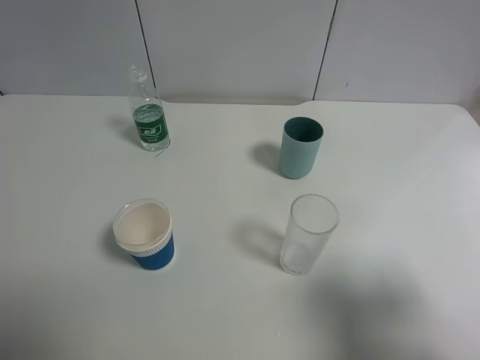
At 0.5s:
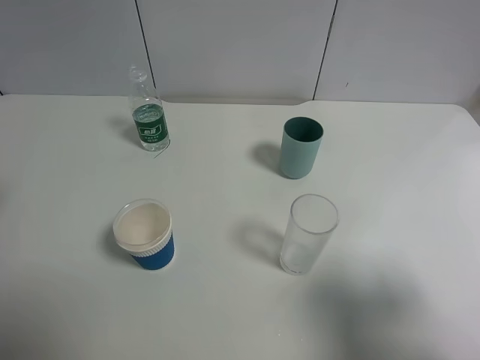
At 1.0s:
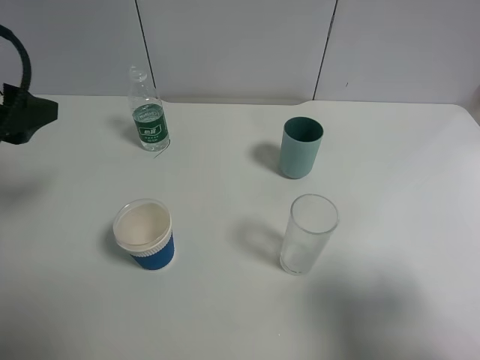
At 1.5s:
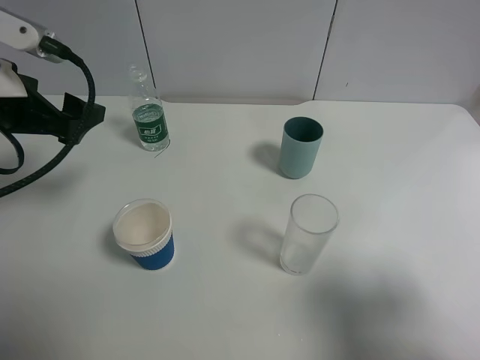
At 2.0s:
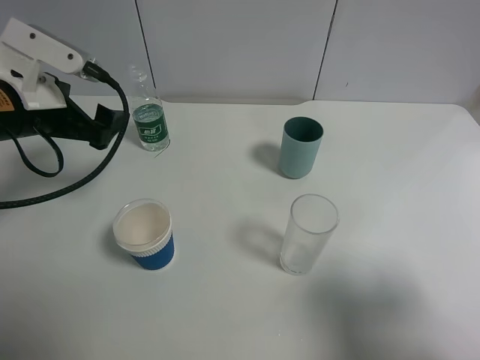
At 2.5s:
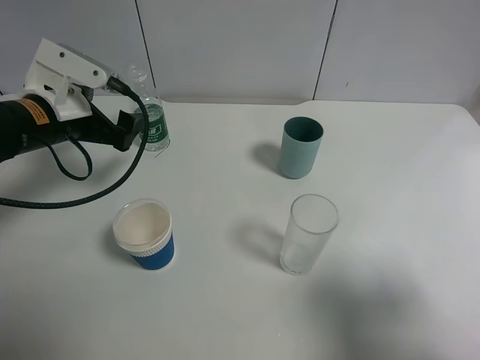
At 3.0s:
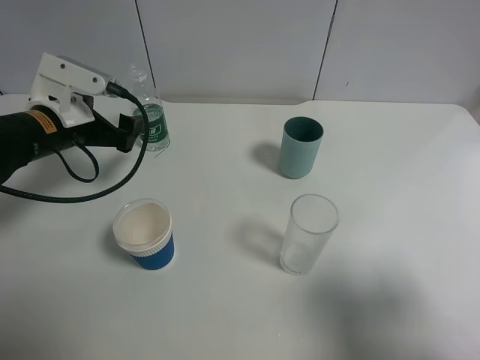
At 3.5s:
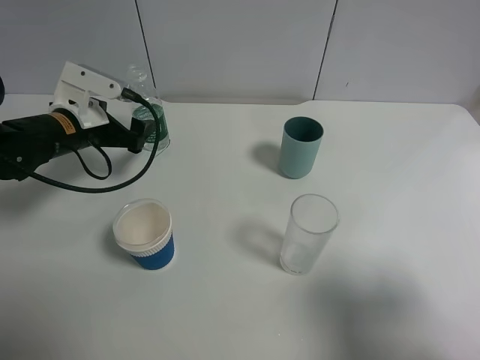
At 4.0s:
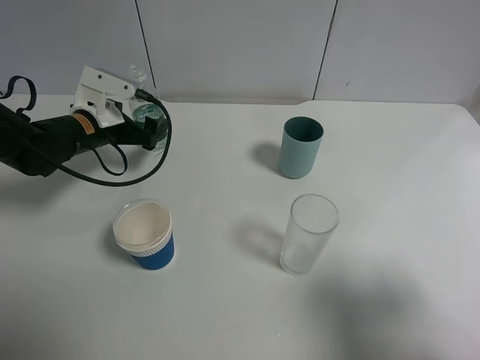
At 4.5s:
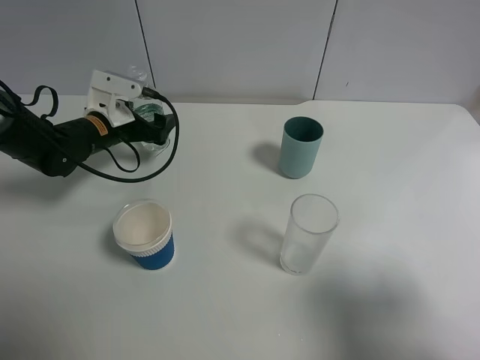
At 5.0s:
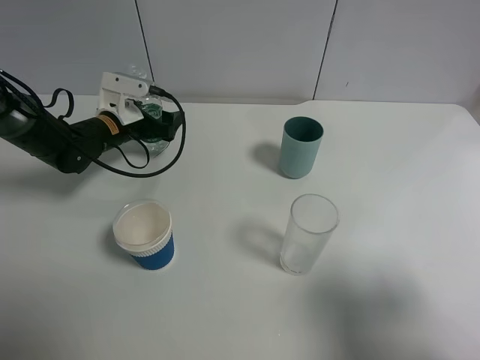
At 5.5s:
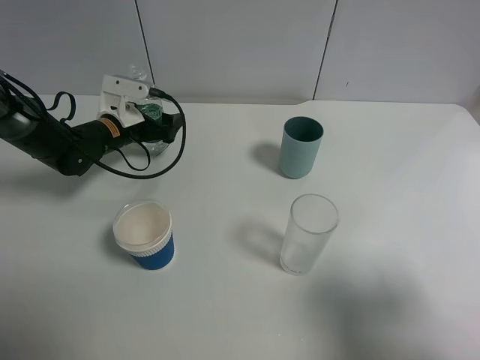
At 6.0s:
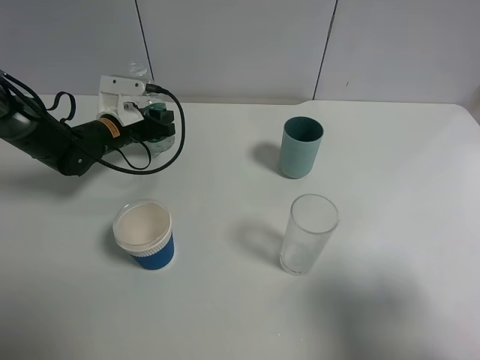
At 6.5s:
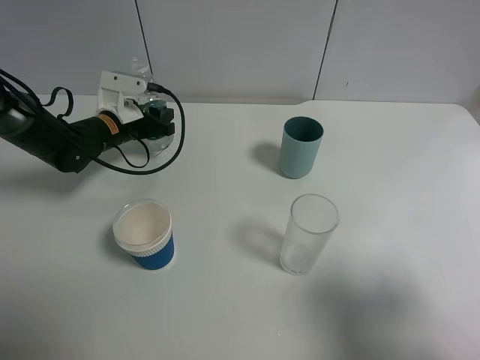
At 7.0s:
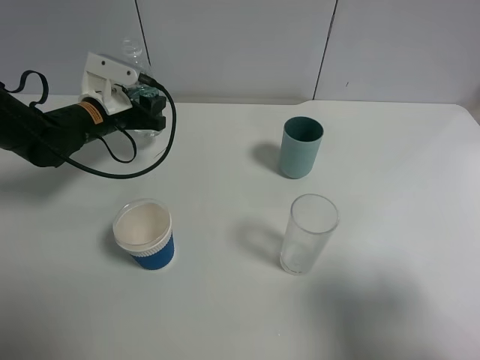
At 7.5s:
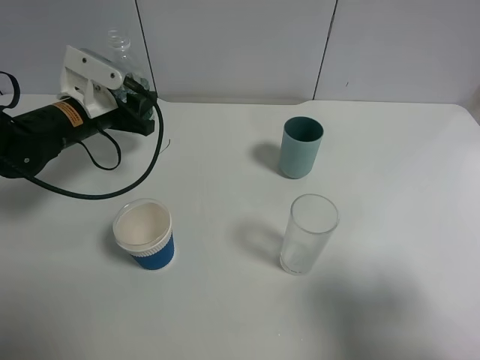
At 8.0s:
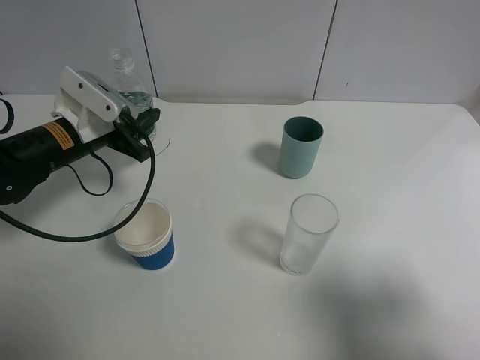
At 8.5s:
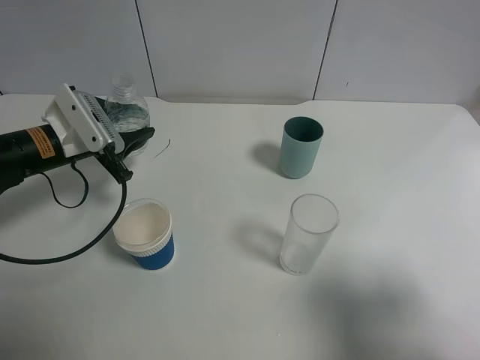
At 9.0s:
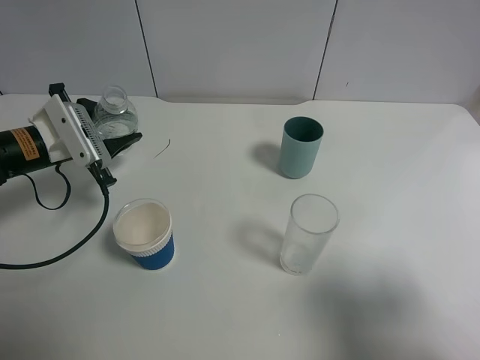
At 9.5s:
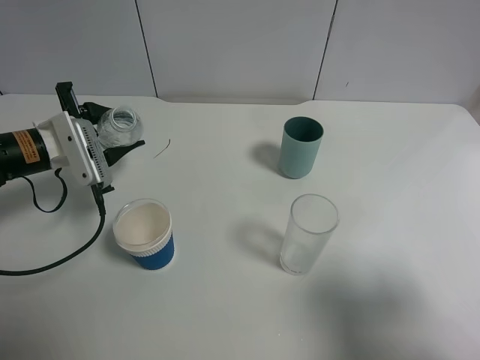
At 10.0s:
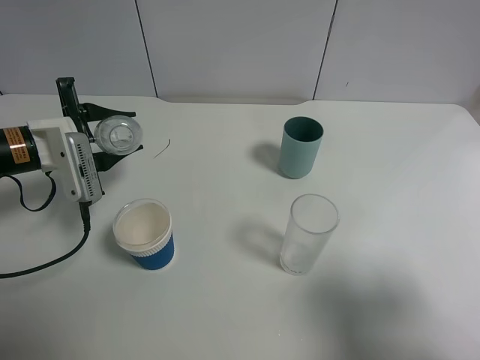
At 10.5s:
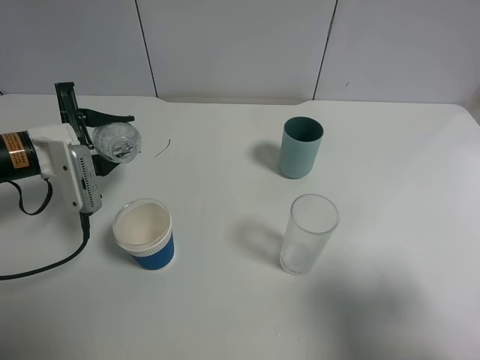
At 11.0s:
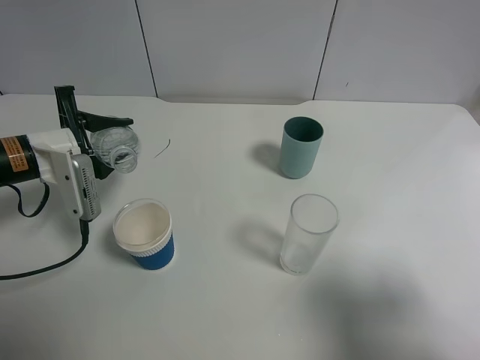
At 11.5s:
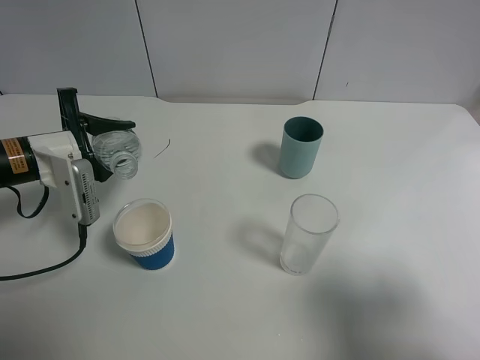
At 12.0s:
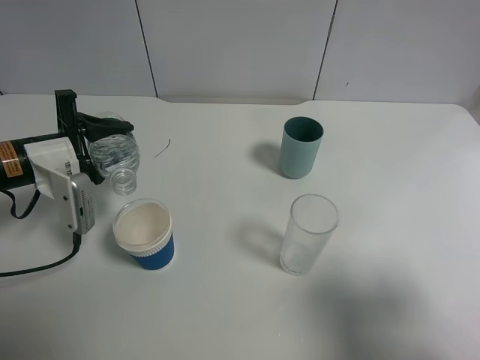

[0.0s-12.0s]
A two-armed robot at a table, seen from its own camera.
Task of the whole recording: use a gripper to hold the bottle of the drink and pour it into a random cup.
Step, 0.0s to 5.5s: Grasp the mineral water bottle with the left gripper.
0.0s to 2.0s: The left gripper is displaced forward, downward and to the right by roughly 20 cm.
2.0s to 4.0s: The left gripper goes approximately 15 cm downward and forward.
4.0s to 6.0s: The left gripper shifts by about 5 cm, and closes its fingers.
6.0s to 8.0s: The left gripper moves backward and upward, some 10 cm.

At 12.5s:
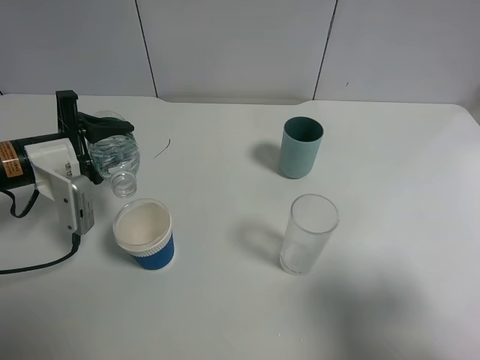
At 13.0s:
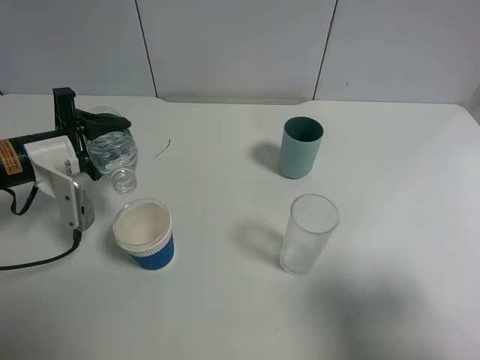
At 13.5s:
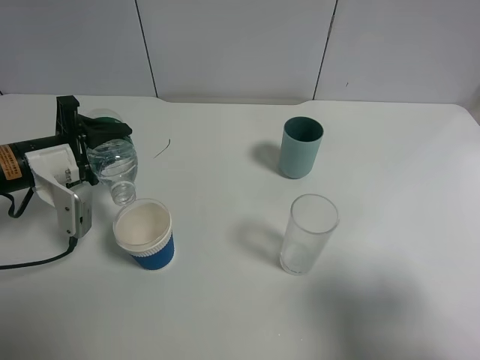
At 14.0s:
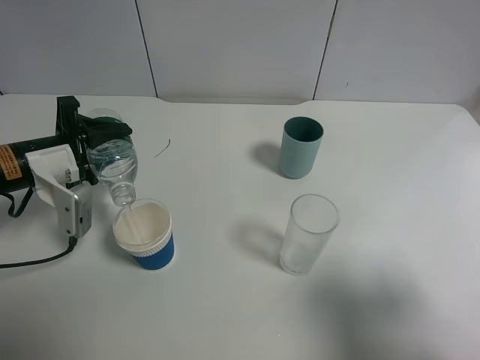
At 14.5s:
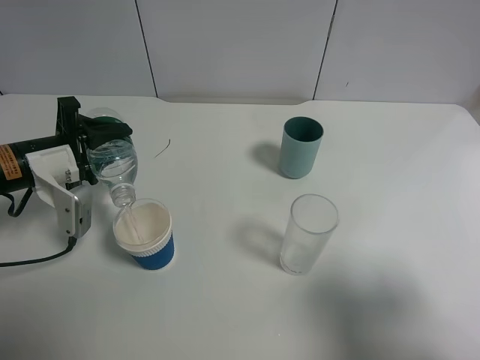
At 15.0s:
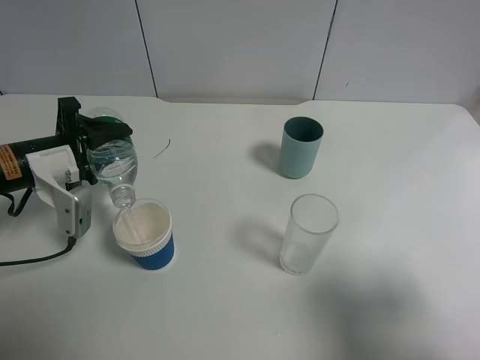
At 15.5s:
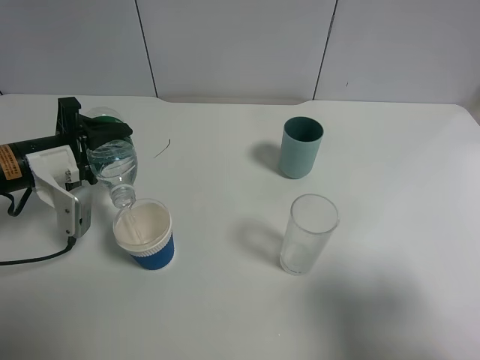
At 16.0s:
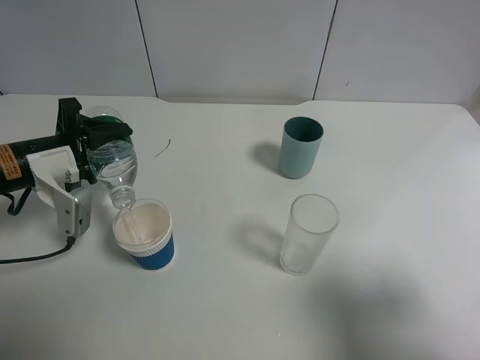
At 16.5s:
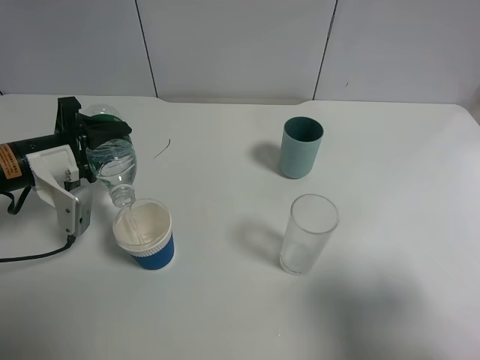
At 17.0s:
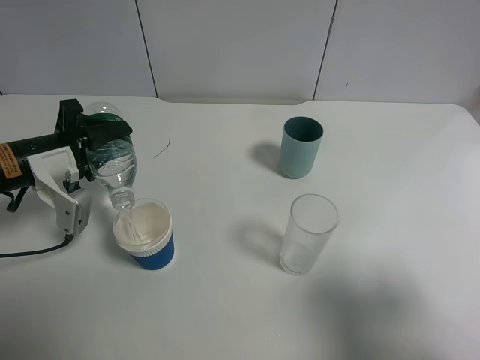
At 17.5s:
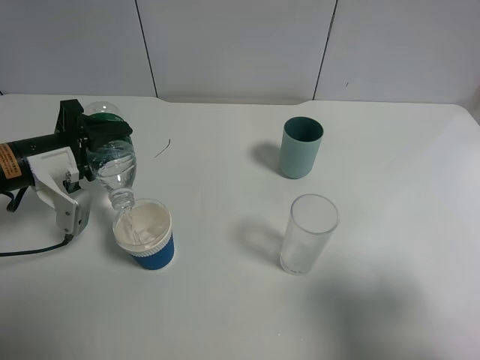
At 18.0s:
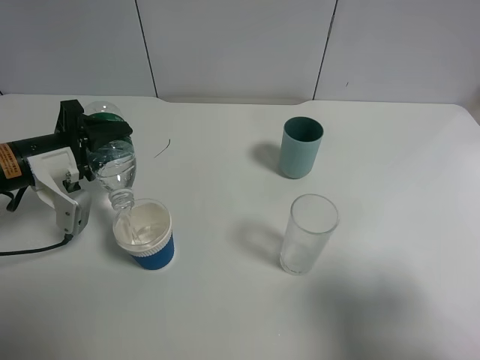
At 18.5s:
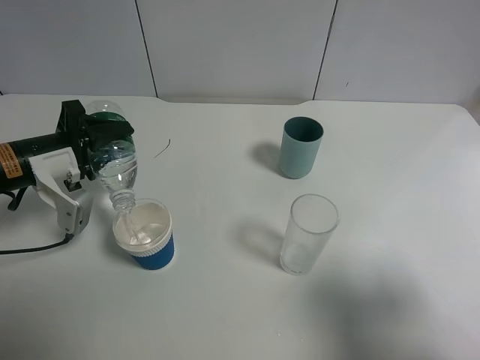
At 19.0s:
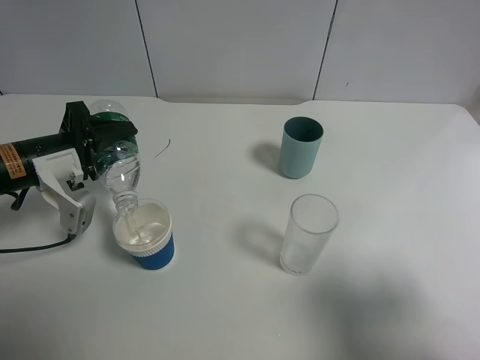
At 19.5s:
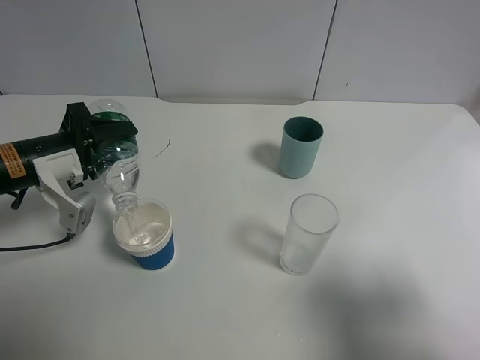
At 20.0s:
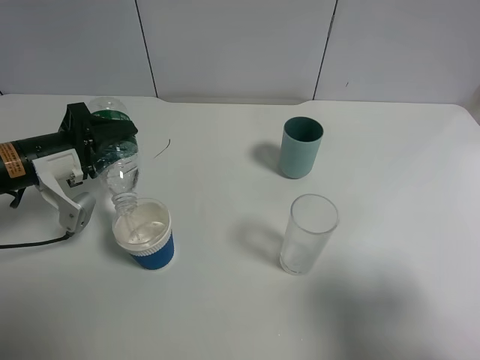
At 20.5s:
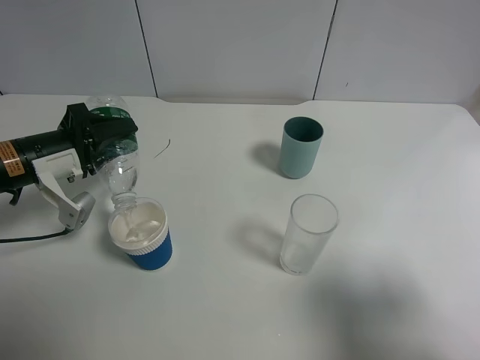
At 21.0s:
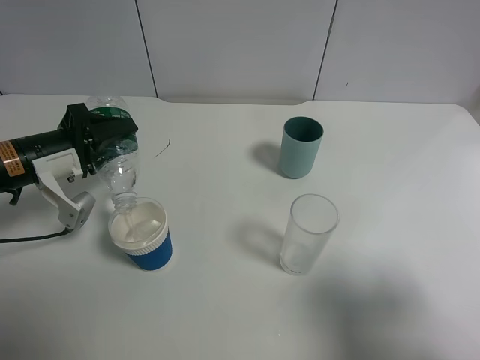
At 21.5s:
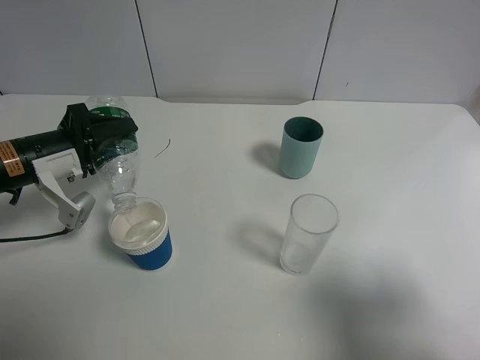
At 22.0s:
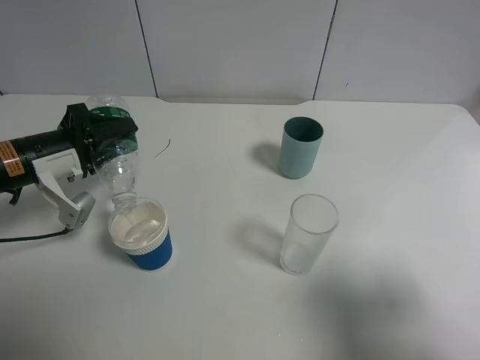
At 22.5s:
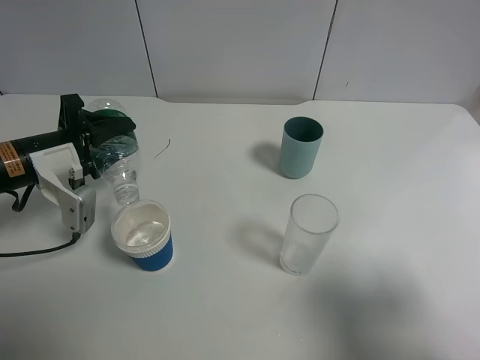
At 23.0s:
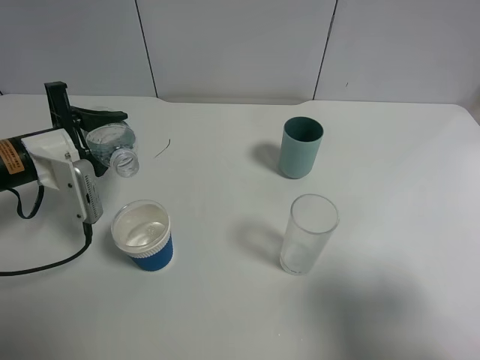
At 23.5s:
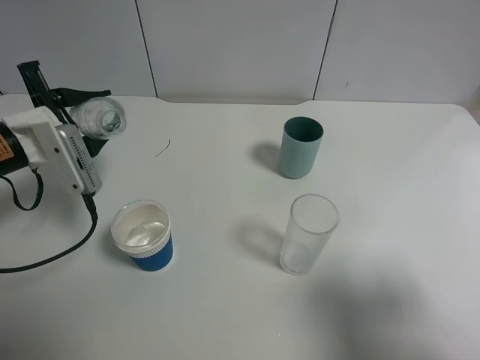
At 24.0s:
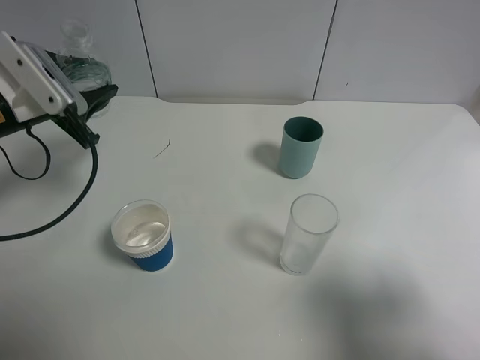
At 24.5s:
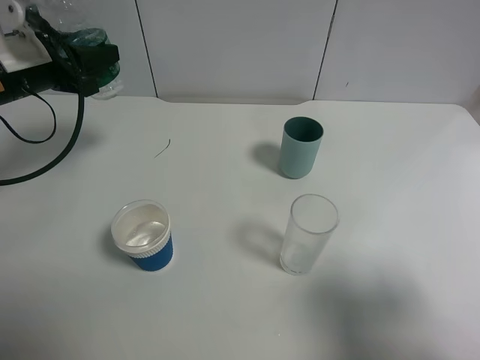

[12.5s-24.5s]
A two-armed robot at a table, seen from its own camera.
Task of the whole recording: use a gripper to hold the bottle of the drink and pour it into a random cup.
Step, 12.5s to 22.5s: Pour the mineral water into the paper cup with the left gripper.
12.5s to 14.5s: The grippers move only a little.
14.5s to 16.5s: Both grippers stay put.
16.5s to 22.5s: There are only small adjustments of the grippers.
22.5s to 24.5s: The left gripper goes approximately 10 cm upward and forward.

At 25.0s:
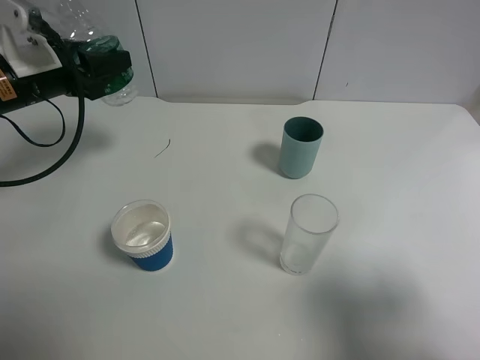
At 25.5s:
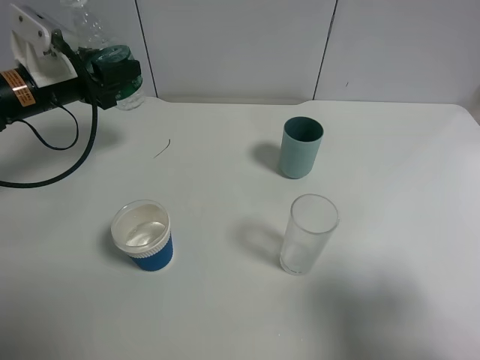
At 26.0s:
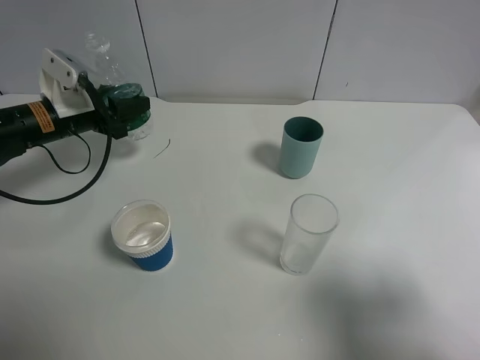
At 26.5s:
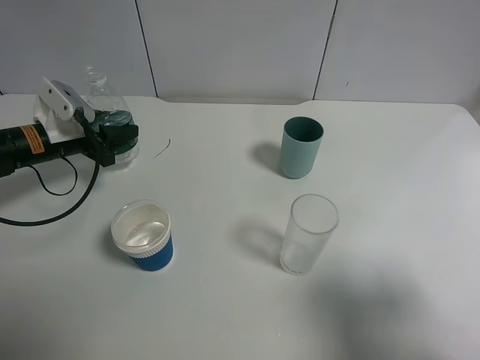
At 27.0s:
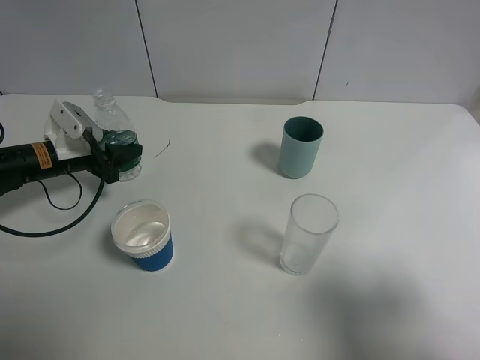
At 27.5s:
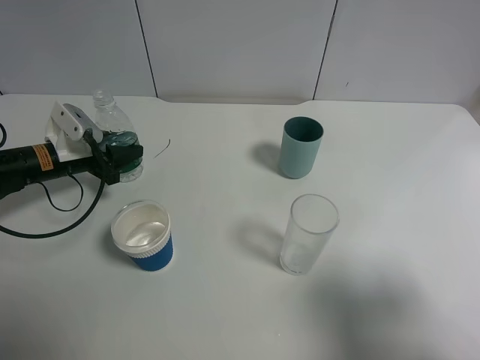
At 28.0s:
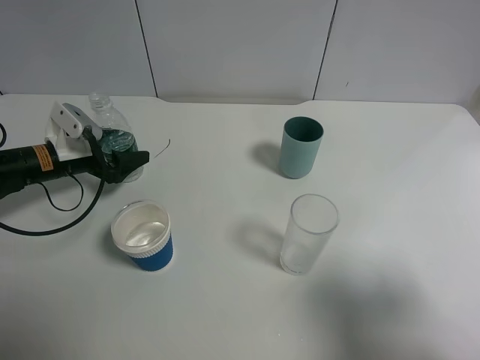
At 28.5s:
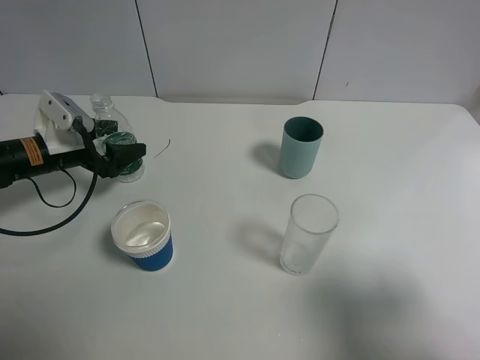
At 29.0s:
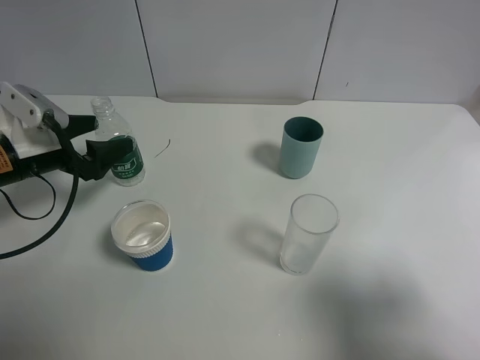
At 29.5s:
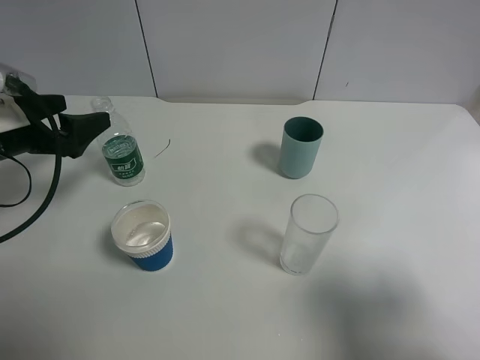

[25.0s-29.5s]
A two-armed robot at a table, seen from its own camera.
Task of the whole recording: use a gripper to hold the bottle of the drink and pour it into a random cup.
Step, 25.0s to 28.0s: Place the mineral water bottle on the table with the left gripper.
25.0s to 27.0s: The left gripper moves downward, about 15 cm.
27.0s to 29.5s: The left gripper moves upward and backward, roughly 15 cm, and opens its fingers.
